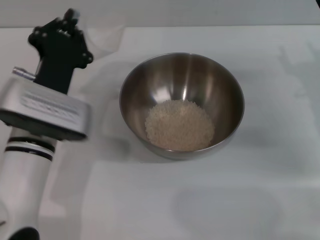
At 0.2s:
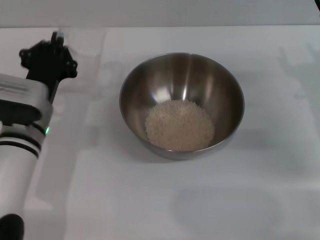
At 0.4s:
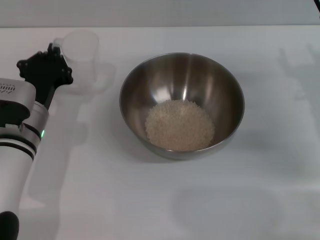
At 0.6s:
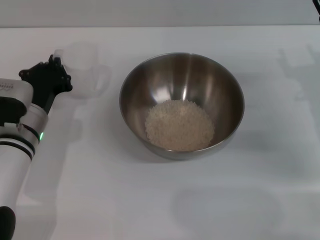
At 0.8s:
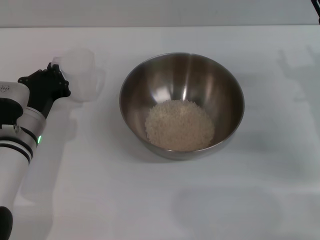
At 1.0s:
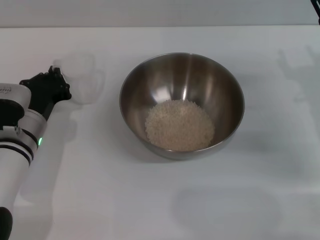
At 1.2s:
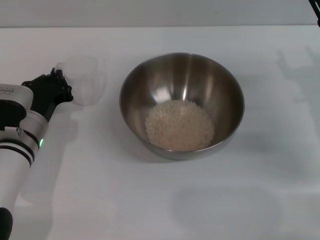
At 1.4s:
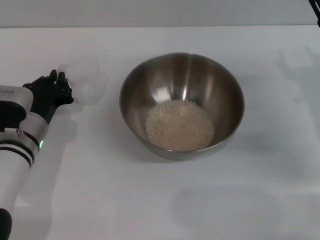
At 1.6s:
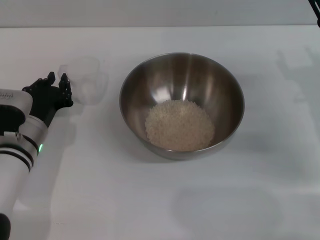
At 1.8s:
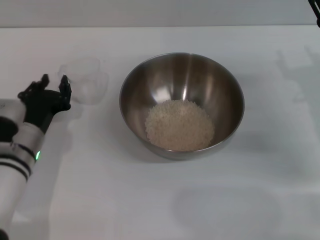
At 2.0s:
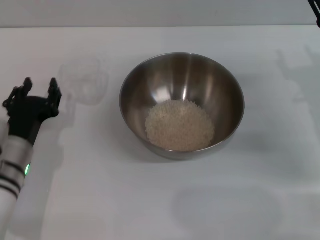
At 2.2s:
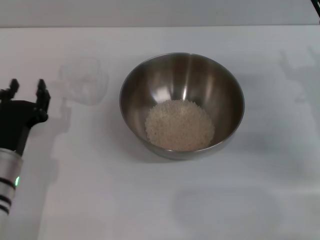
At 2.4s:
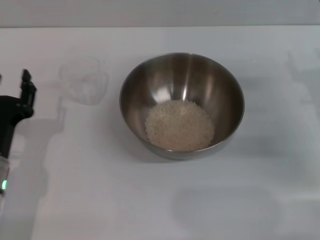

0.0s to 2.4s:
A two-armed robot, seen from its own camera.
Task of the whole recording: Place the bowl in the middle of the table with one hand and pour the rice from the grain cup into it with the other hand.
Step, 0.0s to 1.8s: Place the cup on the table with the left gripper.
0.0s to 1.2s: The left gripper is displaced downward and to the left by some 10 cm.
1.2s to 2.4s: The left gripper heads backward, covering approximately 10 cm, and opens its fingers.

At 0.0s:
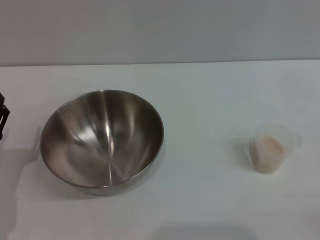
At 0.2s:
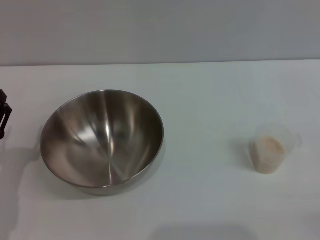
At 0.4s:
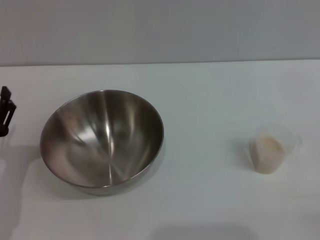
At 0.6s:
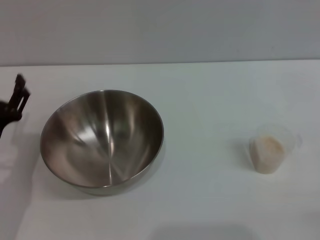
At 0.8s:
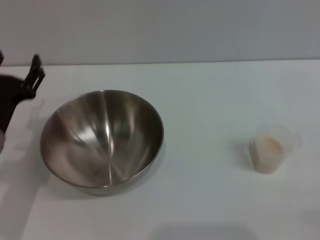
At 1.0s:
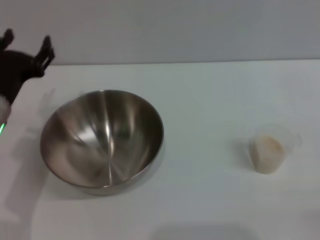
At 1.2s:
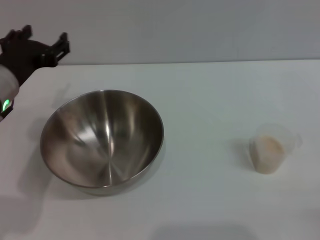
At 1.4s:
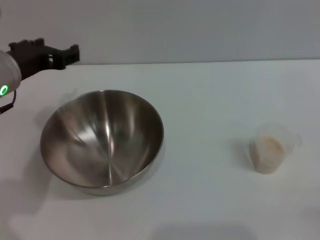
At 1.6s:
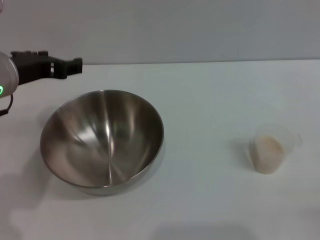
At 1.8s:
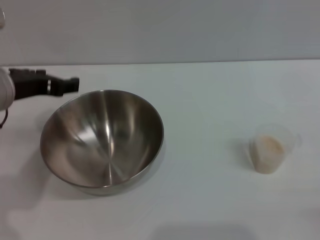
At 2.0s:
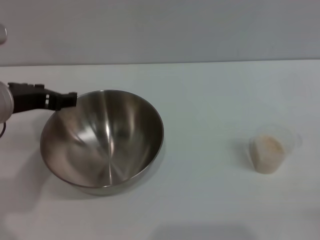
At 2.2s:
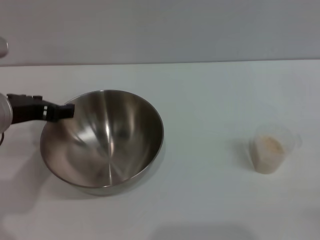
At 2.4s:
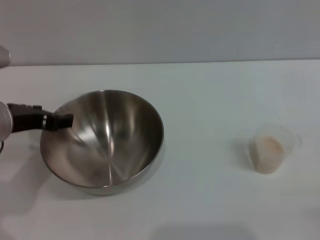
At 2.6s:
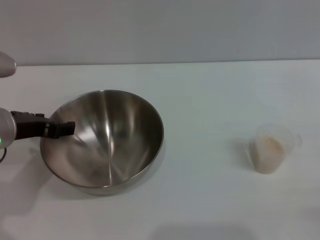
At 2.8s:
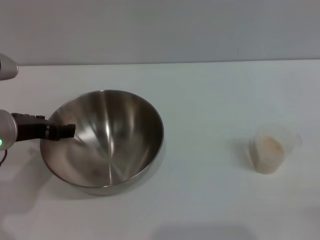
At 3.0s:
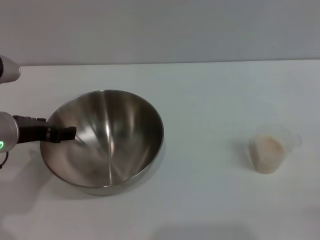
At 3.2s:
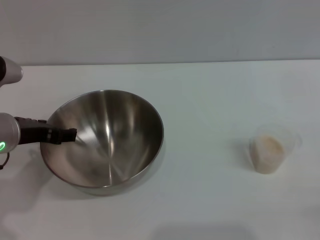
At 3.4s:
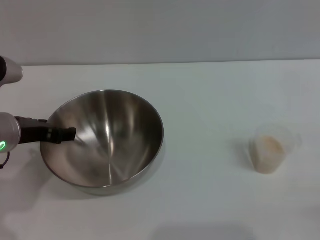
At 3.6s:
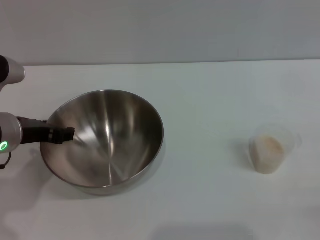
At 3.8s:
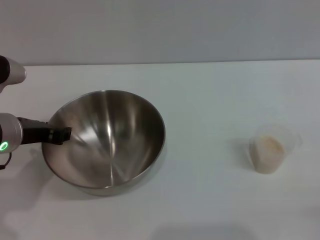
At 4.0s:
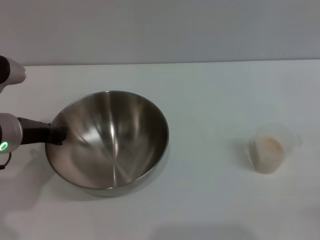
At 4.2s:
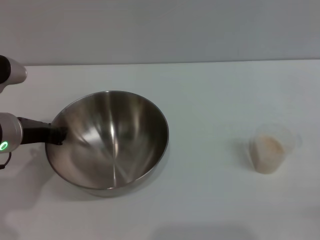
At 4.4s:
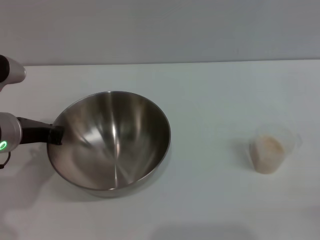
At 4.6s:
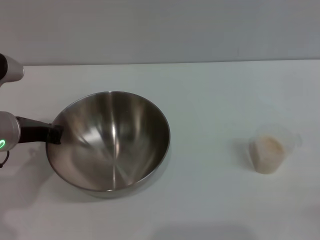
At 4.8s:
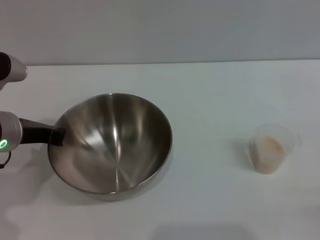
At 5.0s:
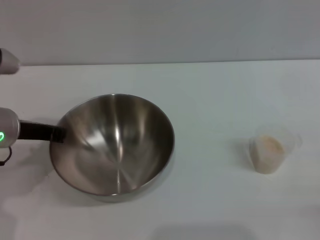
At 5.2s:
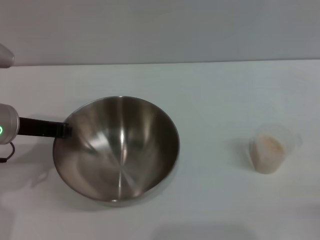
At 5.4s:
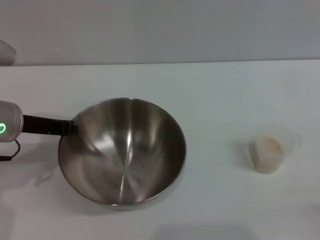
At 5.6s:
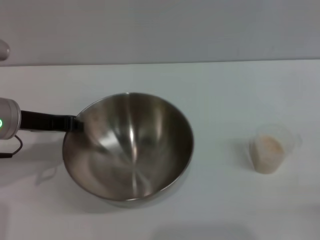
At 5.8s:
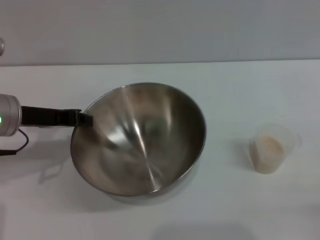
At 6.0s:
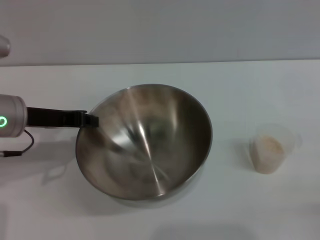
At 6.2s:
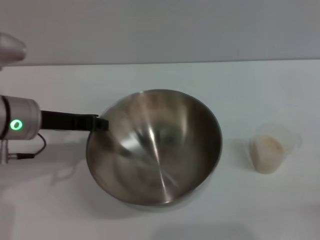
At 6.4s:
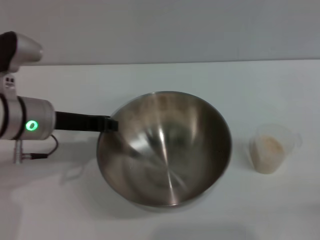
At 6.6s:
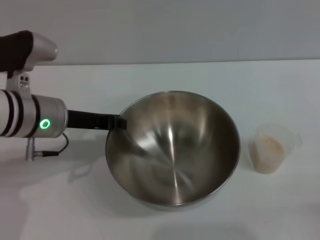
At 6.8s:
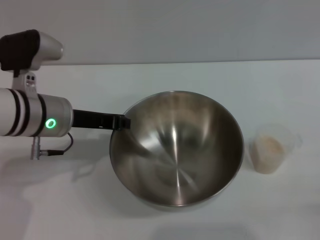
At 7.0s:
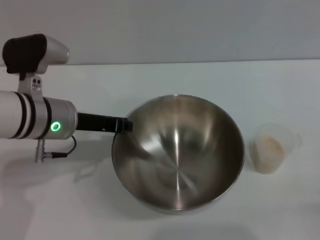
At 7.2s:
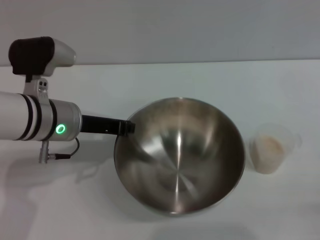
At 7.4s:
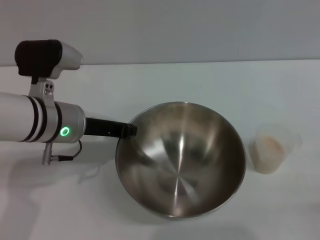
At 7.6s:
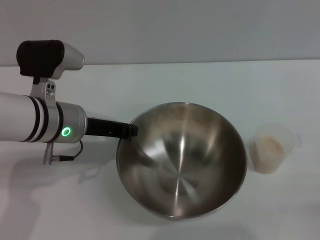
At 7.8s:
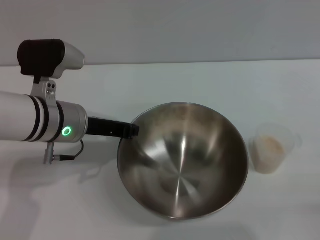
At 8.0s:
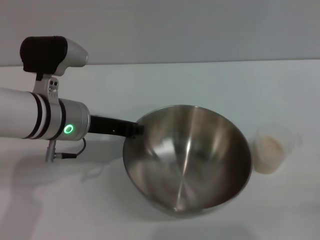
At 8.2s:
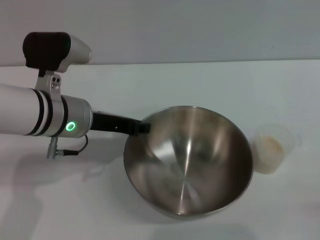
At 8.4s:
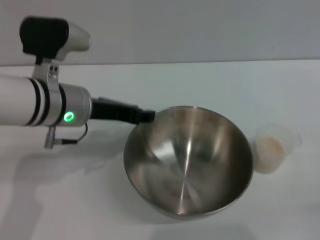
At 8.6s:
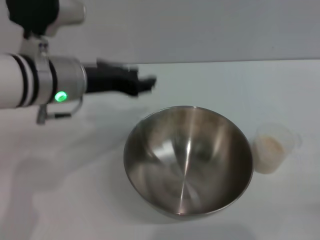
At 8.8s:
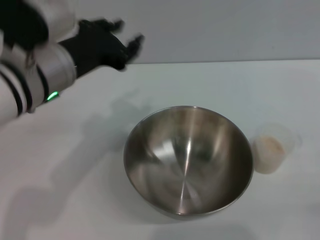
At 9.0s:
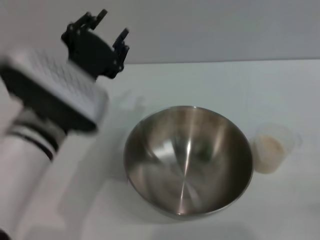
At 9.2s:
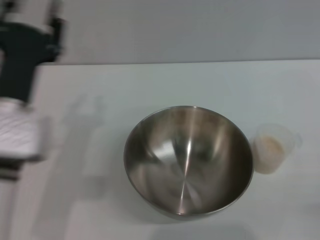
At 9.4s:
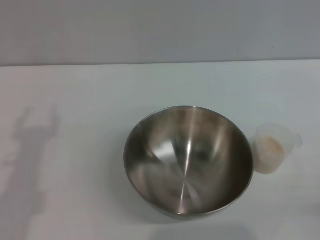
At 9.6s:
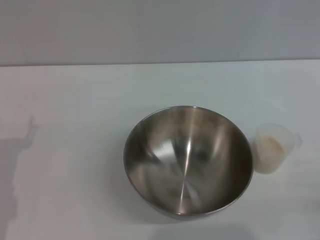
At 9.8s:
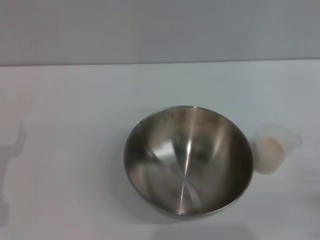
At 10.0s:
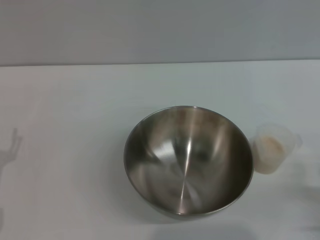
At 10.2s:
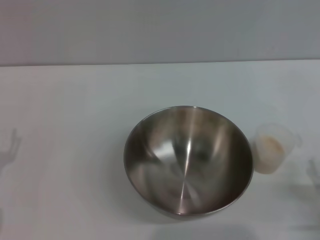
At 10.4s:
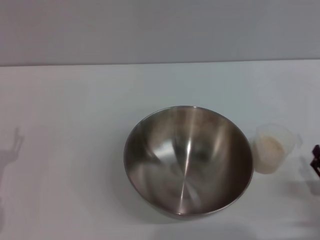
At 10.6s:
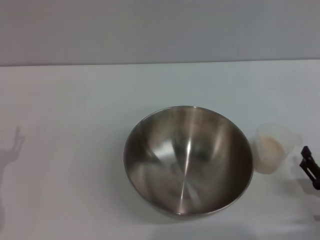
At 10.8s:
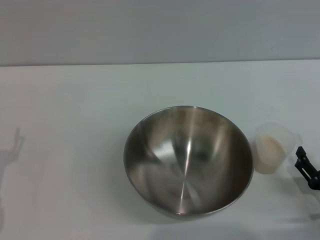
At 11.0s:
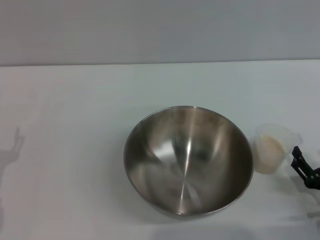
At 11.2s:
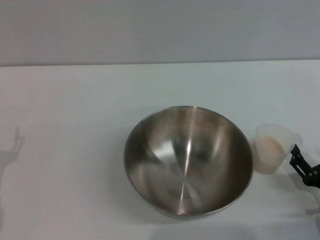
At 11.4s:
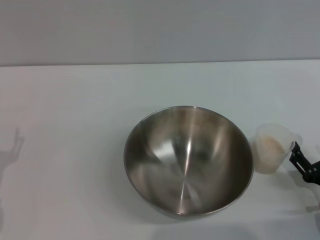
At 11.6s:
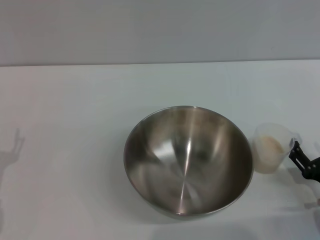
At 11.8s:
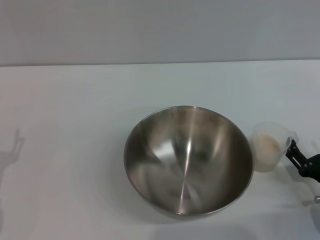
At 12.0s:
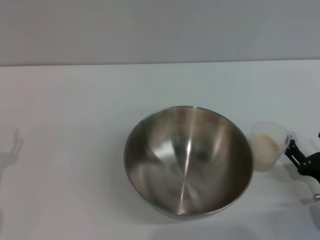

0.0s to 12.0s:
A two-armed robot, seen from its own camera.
Task of the whole recording: Place the bowl in the middle of the table with one hand and pour the rice from the grain cup into it with the other hand.
Step, 0.0s to 5.6s: Pick up the bowl with the left gripper.
Step, 5.8s to 8.6s: Place the bowl in the center of view with the left gripper.
0.0s to 1.6s: The left gripper moves upward, forward and to the right, about 20 cm.
1.6s to 3.0s: The left gripper shifts some 5 cm downward.
3.0s to 4.4s: The left gripper closes up.
6.0s to 7.6s: The left gripper shifts some 10 cm to the right.
7.6s to 9.0s: The left gripper heads backward, covering roughly 5 cm, and opens up.
9.0s to 10.4s: The right gripper is displaced forward by roughly 5 cm. Meanwhile the left gripper is displaced to the left and downward by approximately 20 cm, and opens.
10.4s to 12.0s: There are only small adjustments of the grippers.

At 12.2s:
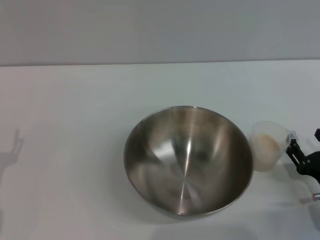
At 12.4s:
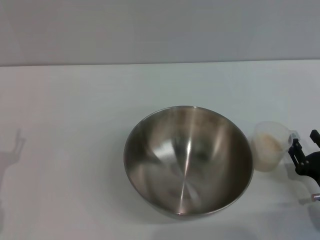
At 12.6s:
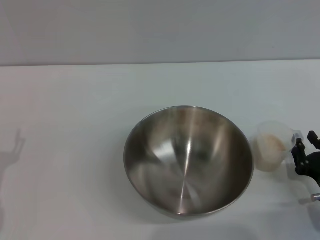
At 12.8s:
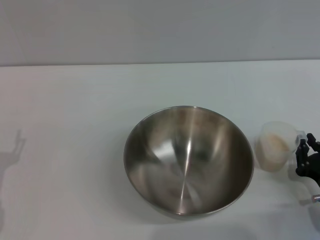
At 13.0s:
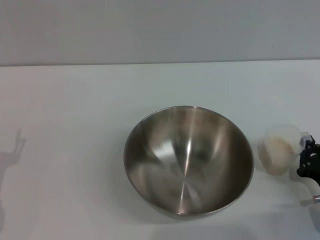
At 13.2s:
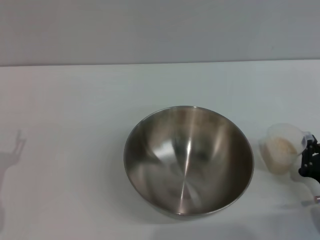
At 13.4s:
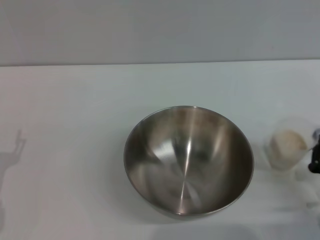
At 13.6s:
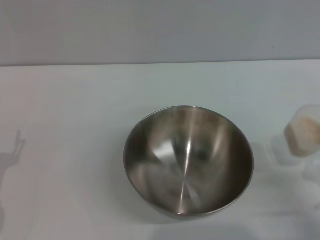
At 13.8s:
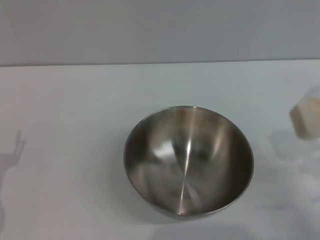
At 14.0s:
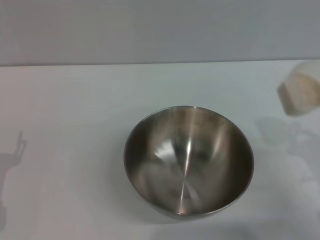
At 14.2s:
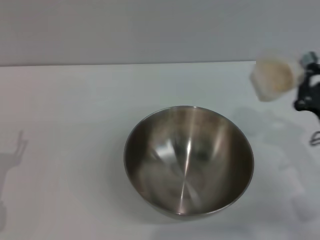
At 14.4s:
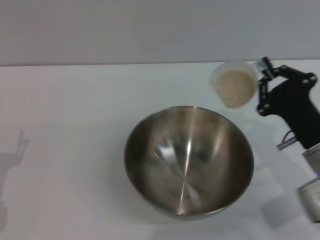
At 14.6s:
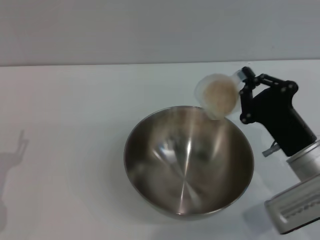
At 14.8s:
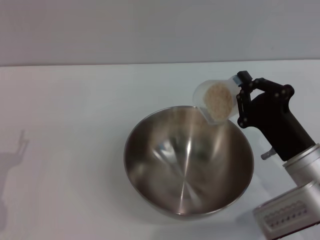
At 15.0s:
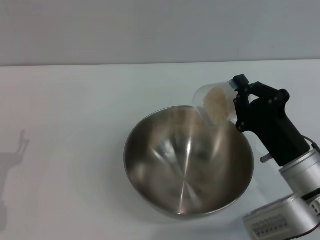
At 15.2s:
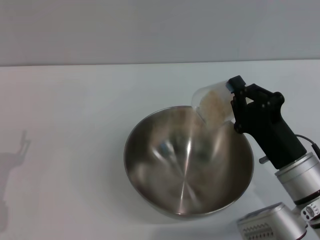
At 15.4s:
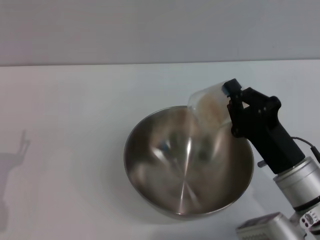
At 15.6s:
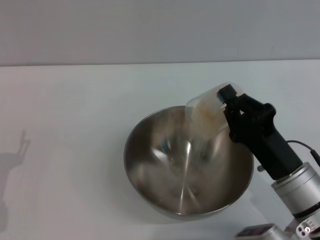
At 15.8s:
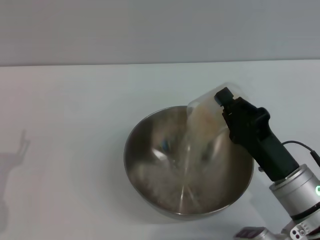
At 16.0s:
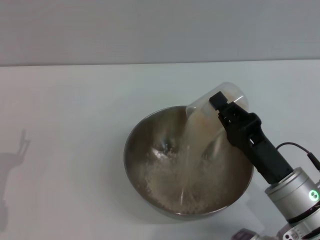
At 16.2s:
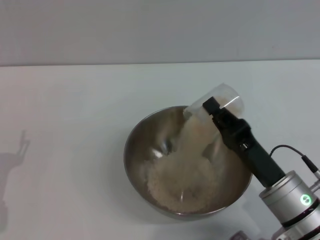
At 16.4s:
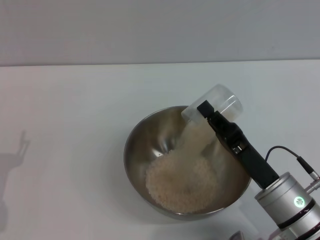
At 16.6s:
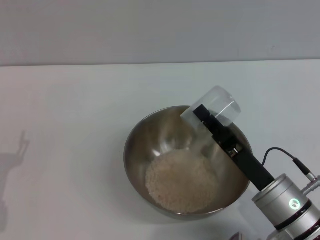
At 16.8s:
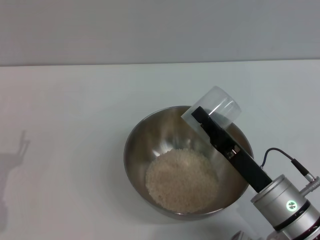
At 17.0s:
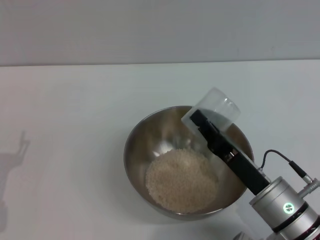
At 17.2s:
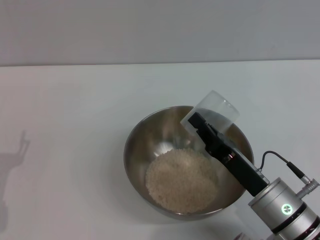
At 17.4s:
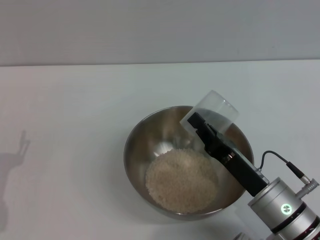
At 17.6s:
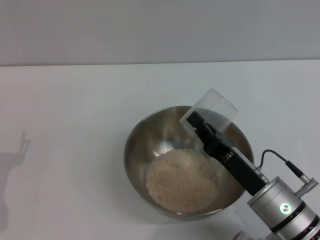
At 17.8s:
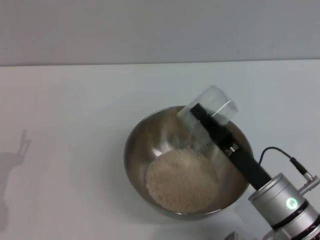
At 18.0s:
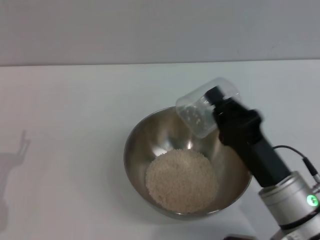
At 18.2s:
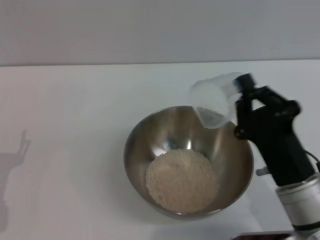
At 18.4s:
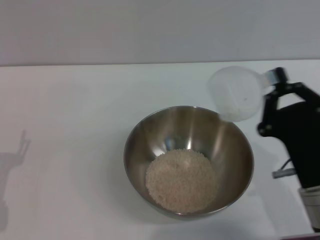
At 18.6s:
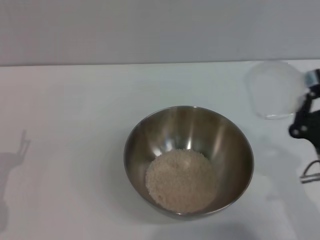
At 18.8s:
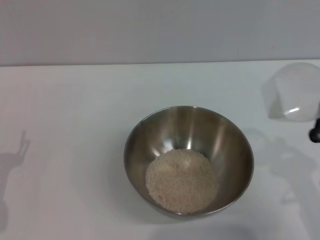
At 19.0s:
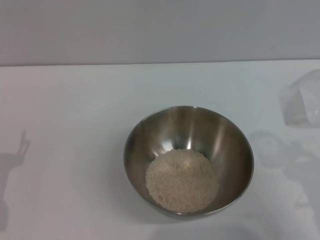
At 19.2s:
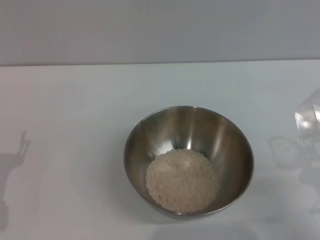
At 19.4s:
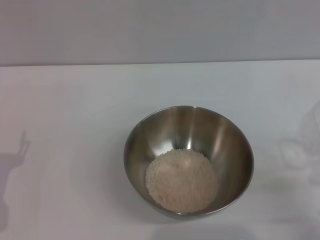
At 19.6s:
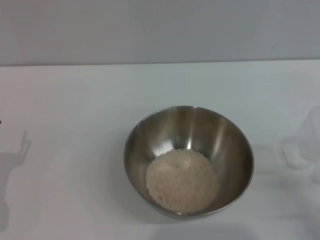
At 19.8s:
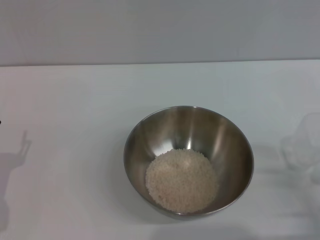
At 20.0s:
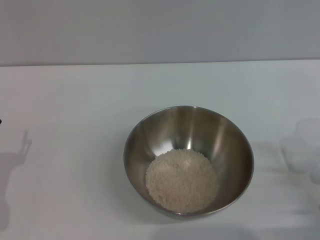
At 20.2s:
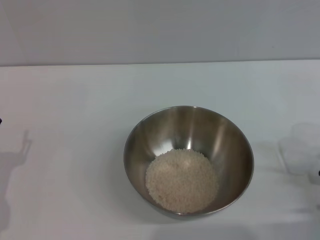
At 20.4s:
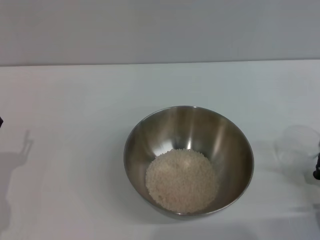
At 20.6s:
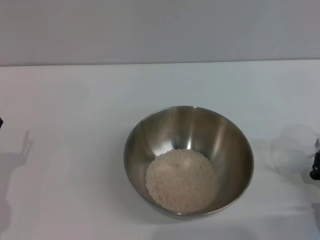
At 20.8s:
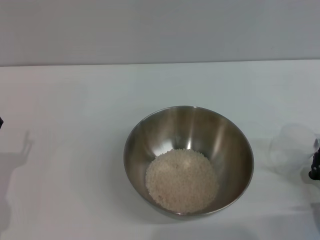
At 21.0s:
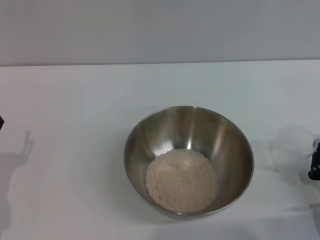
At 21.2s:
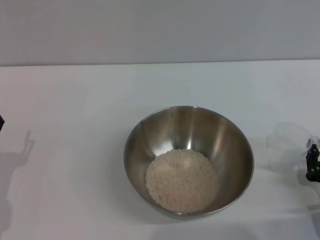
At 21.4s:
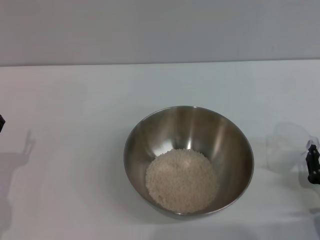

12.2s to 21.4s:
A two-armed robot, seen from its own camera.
Task of the whole recording: Place the bowl in the middle of the table with one hand and pour the rice from the grain cup into it with the other hand.
Step, 12.2s to 14.2s: Pick up the cup with rice in it with the right gripper.
Step, 14.4s to 18.6s: Pour the rice from the cup into the bowl with the right gripper.
12.2s to 13.8s: The right gripper ends up roughly 5 cm from where it was, and closes up.
13.8s to 15.2s: The right gripper is displaced to the left and forward by roughly 10 cm.
18.4s to 19.8s: The right gripper moves to the right and downward, some 15 cm.
19.8s to 21.4s: The grippers make only small movements.
